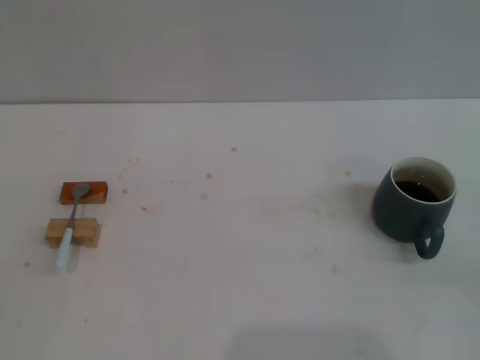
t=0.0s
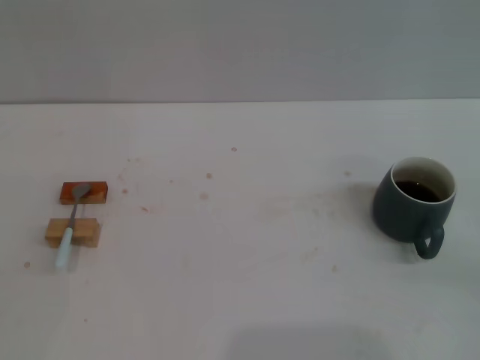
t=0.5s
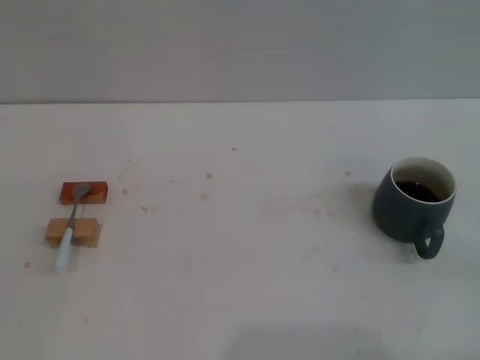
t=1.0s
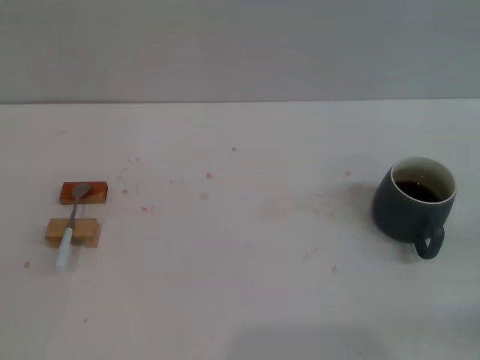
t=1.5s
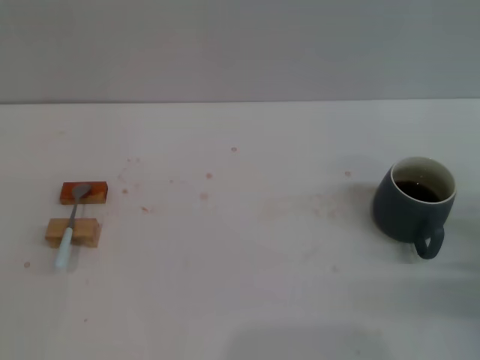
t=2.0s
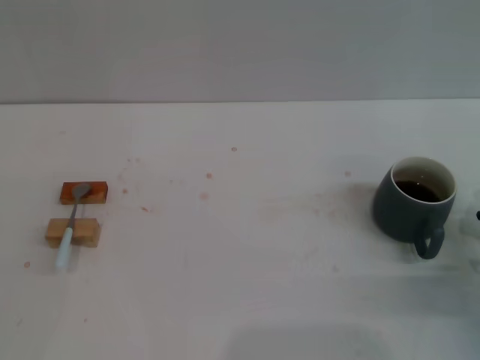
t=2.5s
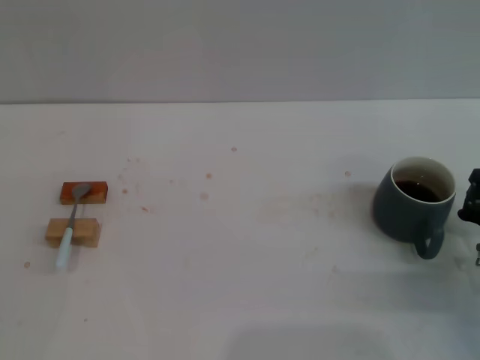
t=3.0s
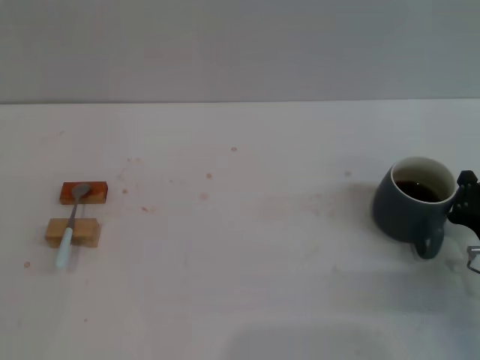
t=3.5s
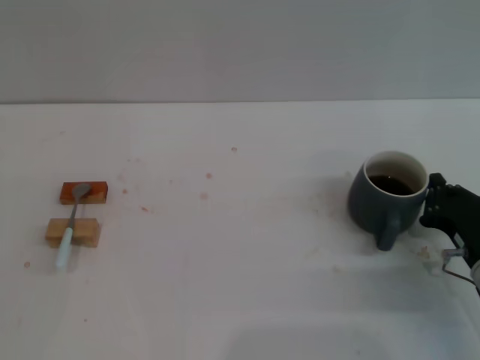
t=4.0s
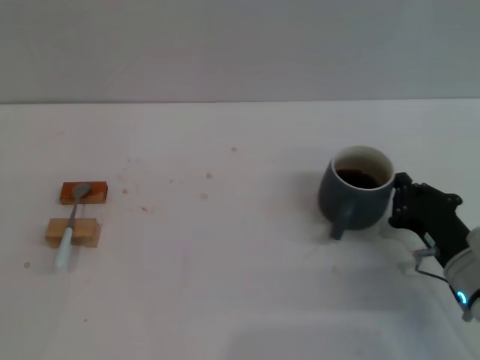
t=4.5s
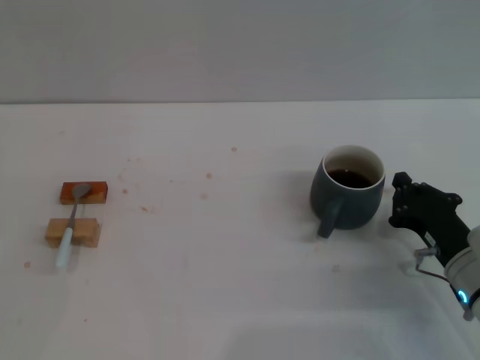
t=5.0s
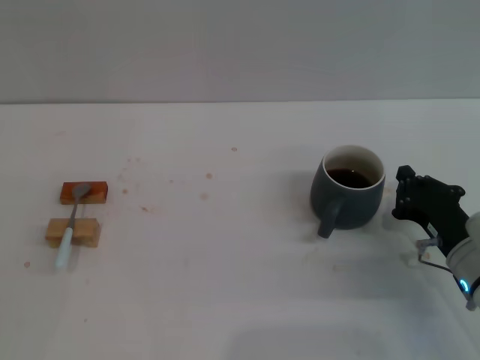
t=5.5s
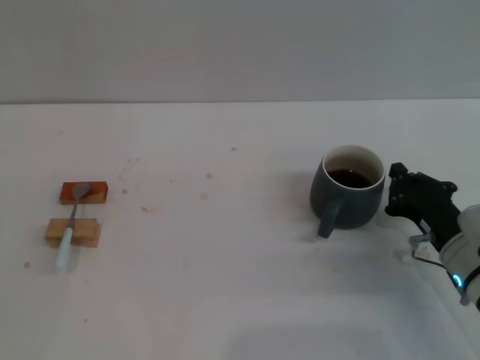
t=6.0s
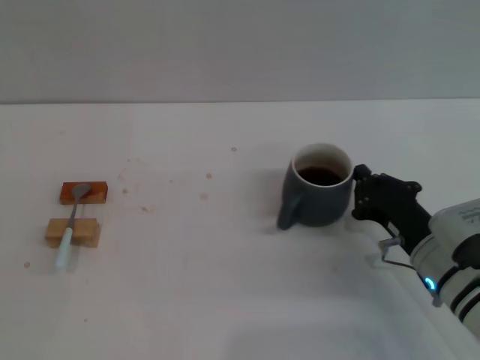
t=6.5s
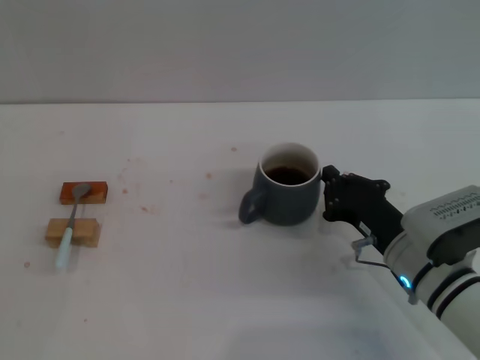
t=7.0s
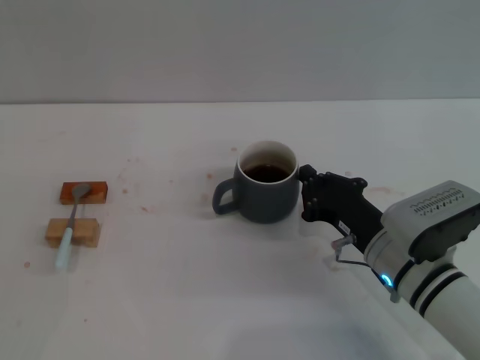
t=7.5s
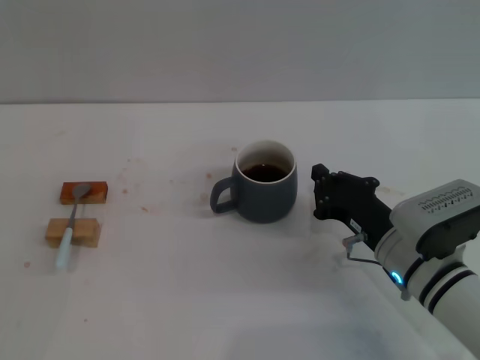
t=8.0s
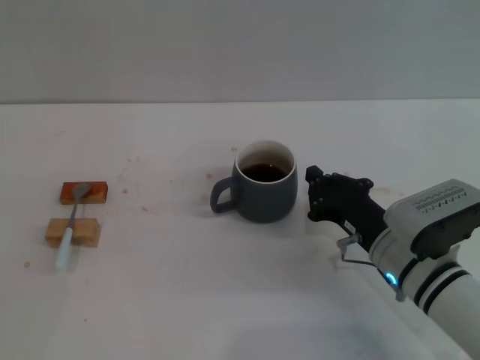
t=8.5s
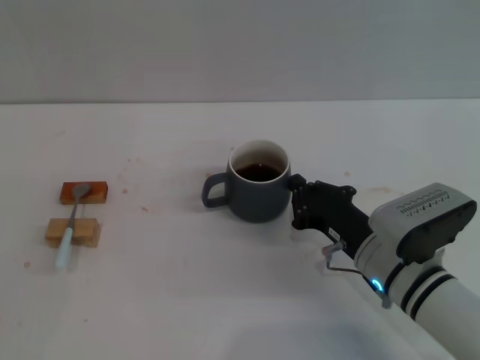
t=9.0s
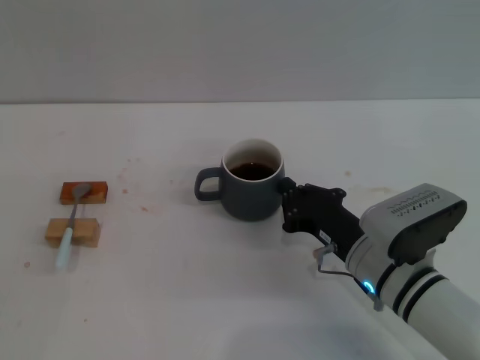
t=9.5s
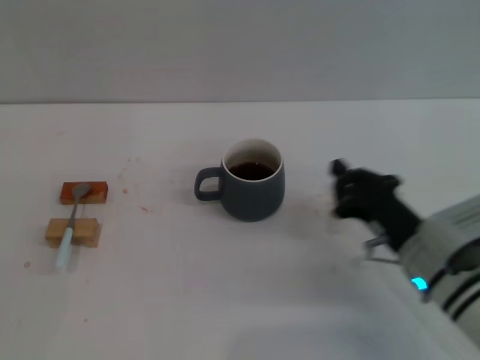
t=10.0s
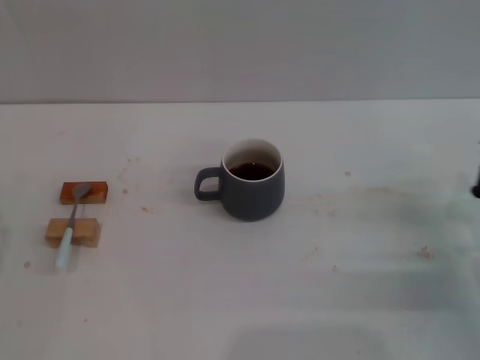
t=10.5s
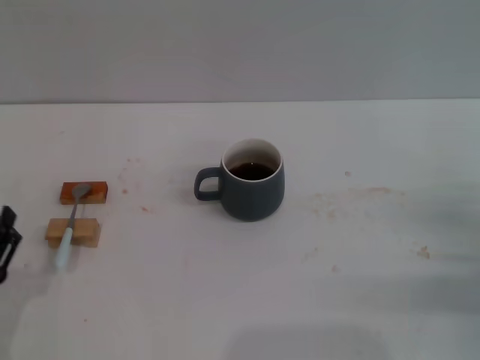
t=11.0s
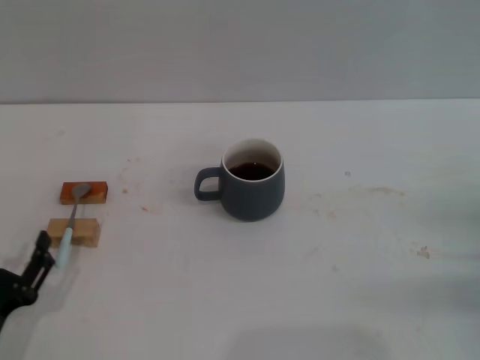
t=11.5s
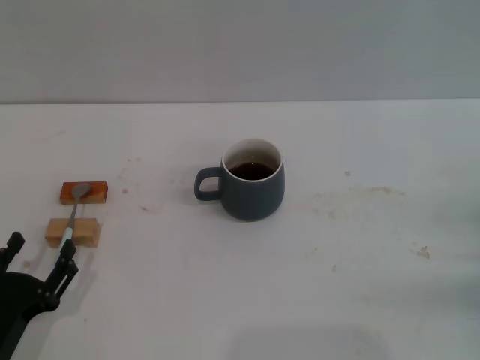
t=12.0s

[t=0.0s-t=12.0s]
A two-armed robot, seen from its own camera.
Task of the whole recording: Move the grey cup to the center, lift the blue spoon, stir it three times in the cup, and put the spoon into the cup.
Step, t=0.0s to t=10.0s: Move the cup with coffee to the center of view with the right gripper.
t=0.0s to t=2.0s: The right gripper is displaced forward by some 10 cm.
t=2.0s to t=4.0s: The right gripper goes roughly 5 cm to the left.
t=4.0s to t=6.0s: The grippers move only a little.
t=6.0s to t=8.0s: The right gripper shifts approximately 5 cm to the left.
t=8.0s to t=10.0s: There are only small adjustments of the grippers.
t=10.0s to t=12.0s: The left gripper shifts about 10 cm to the right; the right gripper goes roughly 15 cm to the right.

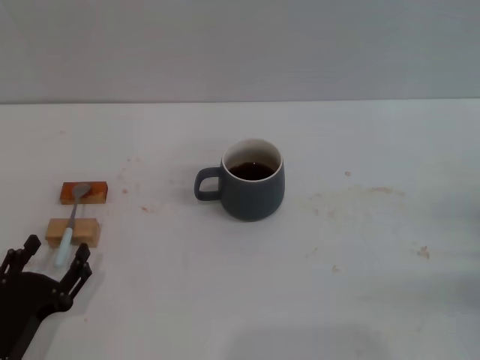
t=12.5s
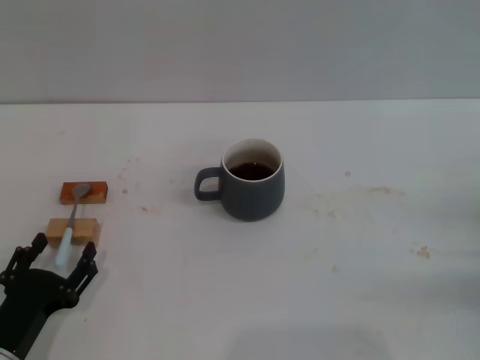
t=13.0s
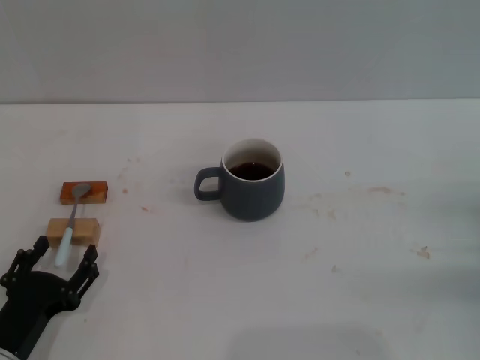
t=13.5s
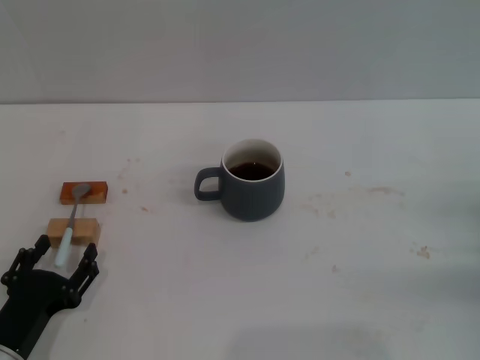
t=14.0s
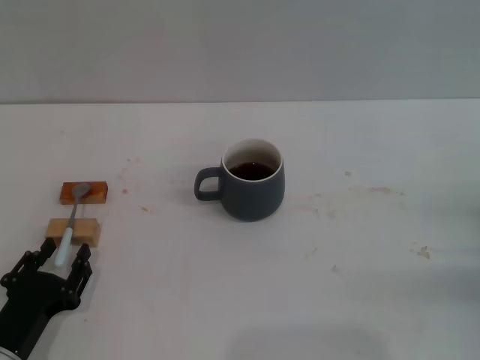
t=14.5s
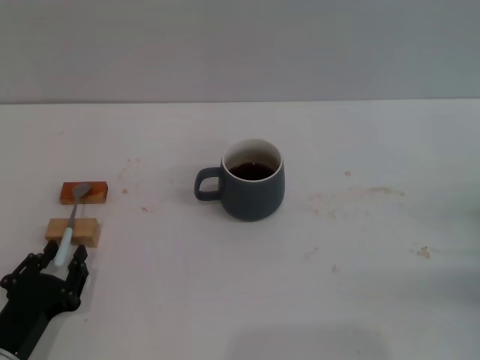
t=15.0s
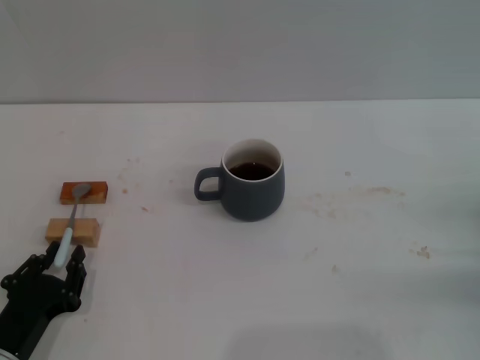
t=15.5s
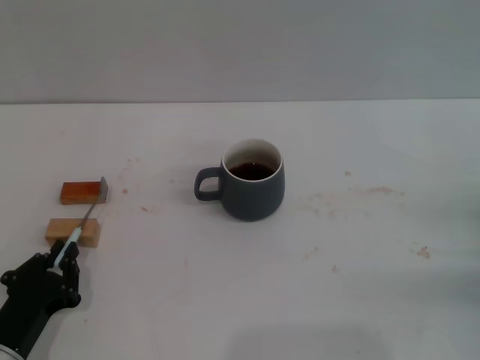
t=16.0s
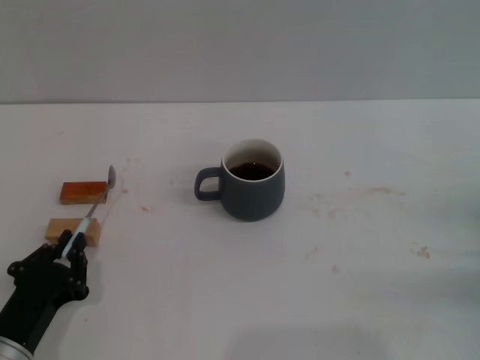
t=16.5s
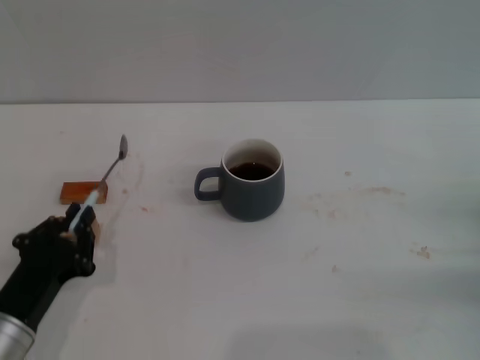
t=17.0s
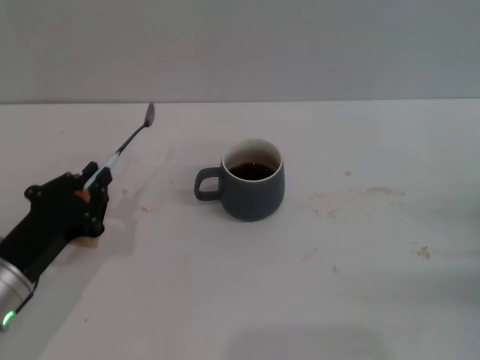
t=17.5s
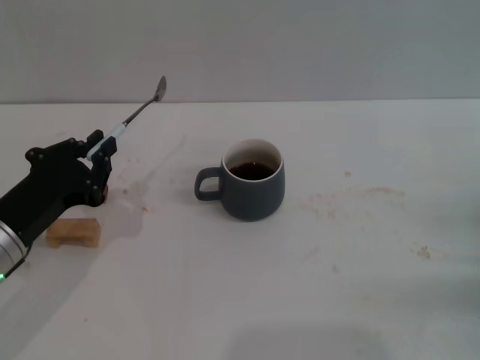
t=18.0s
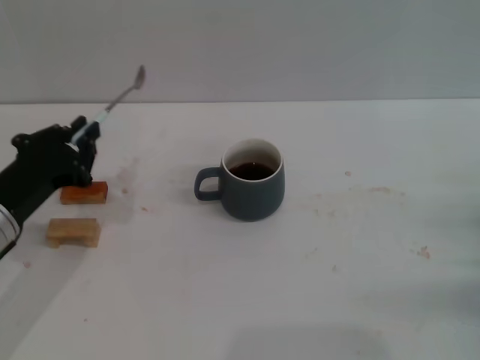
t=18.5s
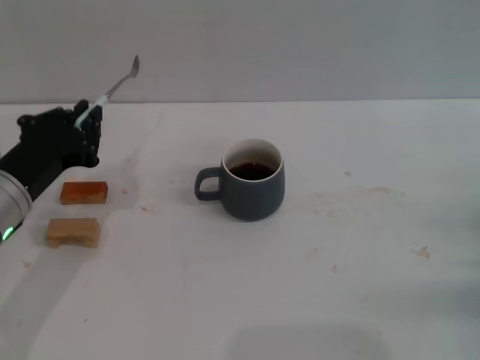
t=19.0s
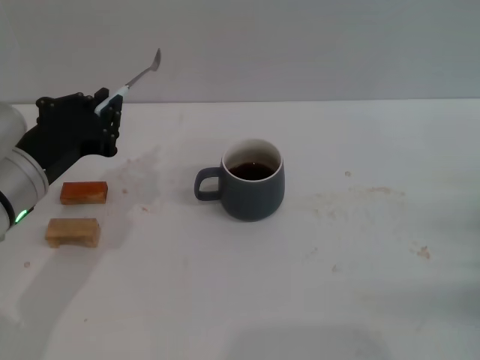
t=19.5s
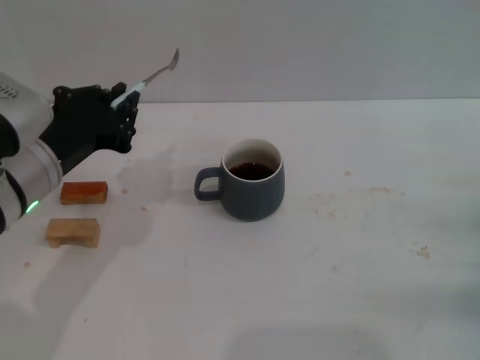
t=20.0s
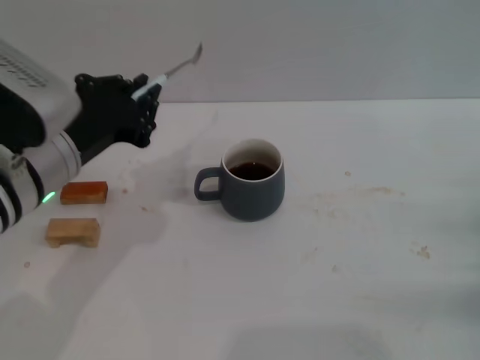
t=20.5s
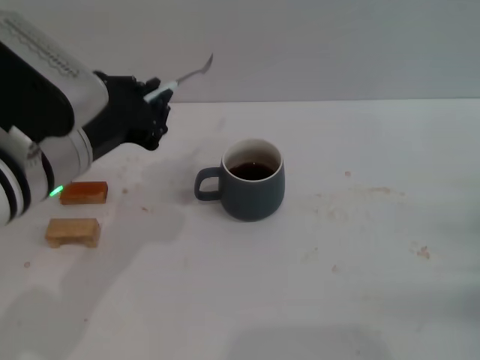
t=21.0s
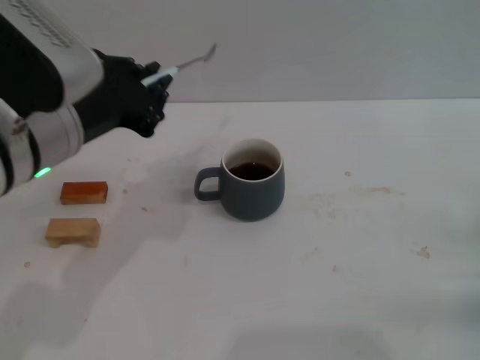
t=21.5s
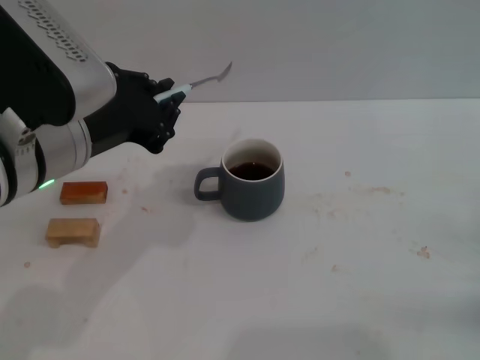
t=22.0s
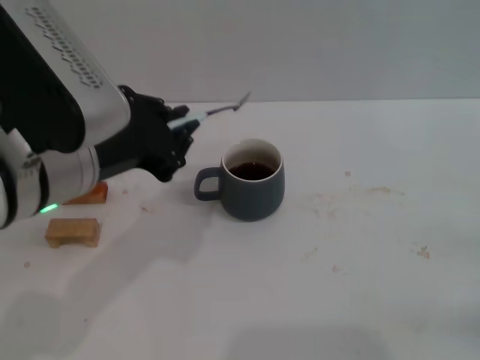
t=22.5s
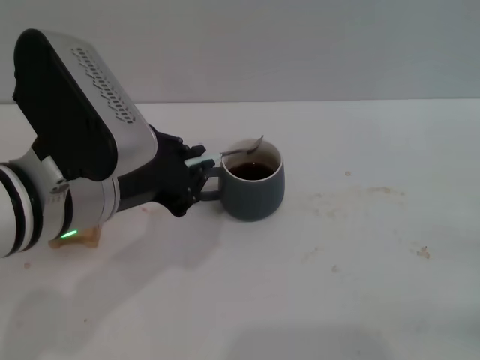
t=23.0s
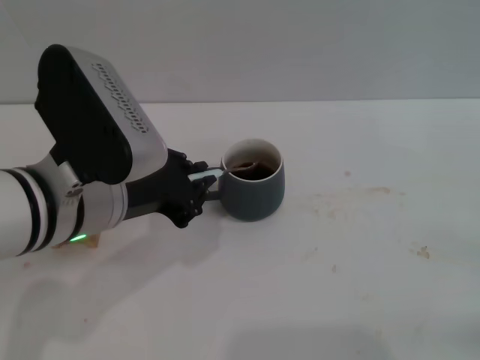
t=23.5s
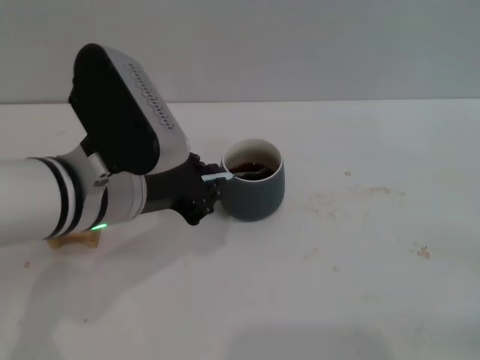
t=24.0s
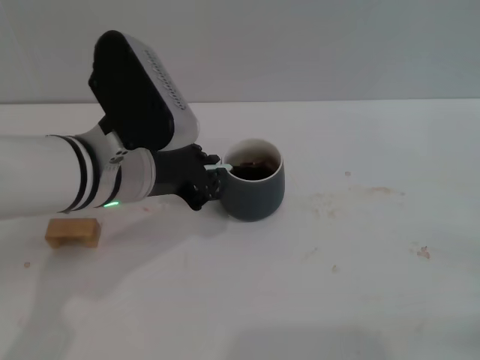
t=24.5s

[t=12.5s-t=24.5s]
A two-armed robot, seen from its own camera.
Task of the whole recording: Move the grey cup to the center, lift the blue spoon, stir it three times in the cup, and put the spoon into the cup.
Step, t=12.5s to t=17.5s: Pick up the spoon with the left gripper.
t=12.5s to t=14.5s: Neither gripper changes place.
t=14.5s to t=16.5s: The left gripper closes.
t=16.5s to t=18.5s: The left gripper heads upward and forward, covering some 15 cm.
t=18.5s to t=20.5s: The left gripper shifts about 10 cm upward and to the right.
t=20.5s to t=22.5s: The left gripper shifts by some 5 cm.
t=22.5s to t=24.5s: The left gripper heads downward and forward, covering roughly 5 cm.

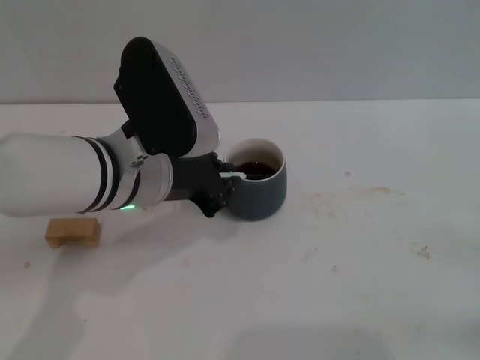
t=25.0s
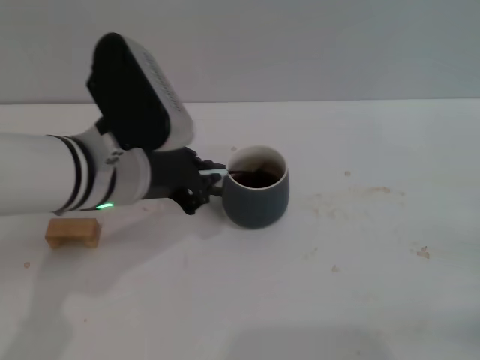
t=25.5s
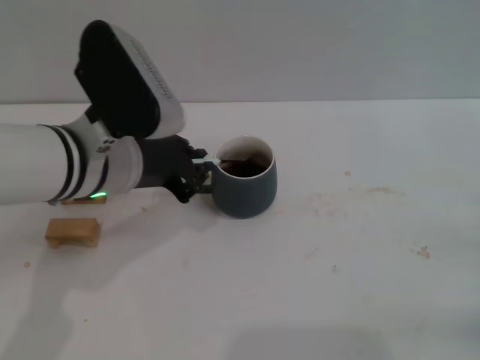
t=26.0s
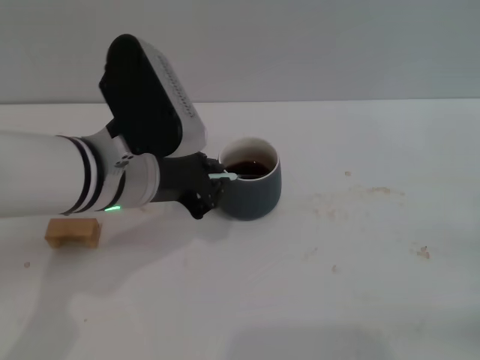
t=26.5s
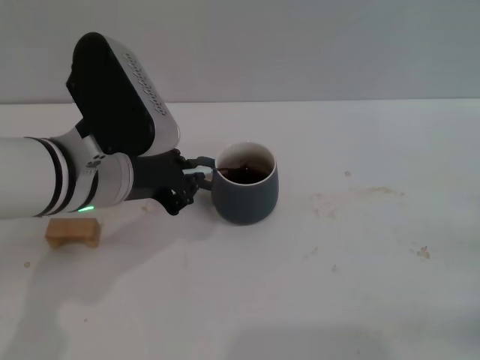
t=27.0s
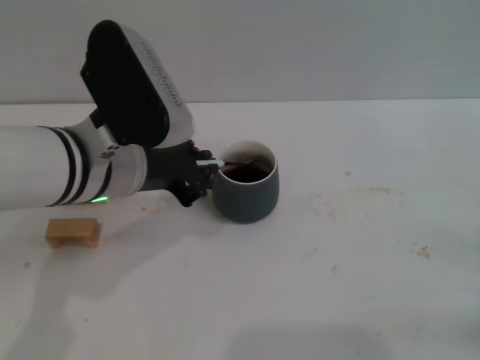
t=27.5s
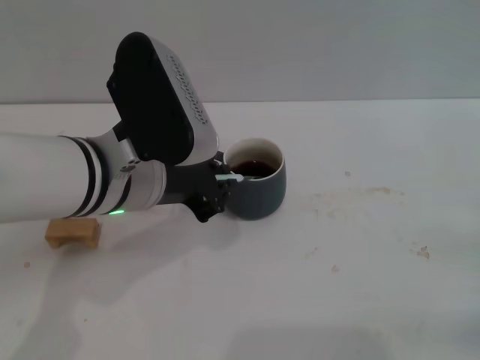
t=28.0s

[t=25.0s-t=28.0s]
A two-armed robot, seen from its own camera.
Task of the whole recording: Move the grey cup to the center, lift the blue spoon, stir it three times in the cup, and put the spoon into the cup.
t=25.0s to t=28.0s: The grippers make only small movements.
